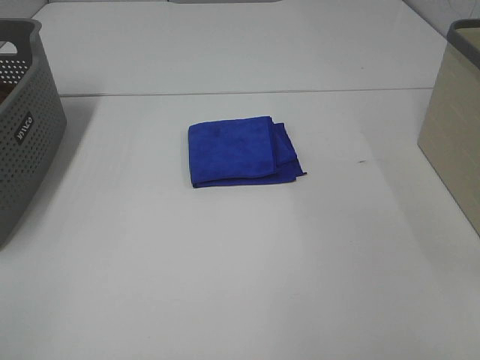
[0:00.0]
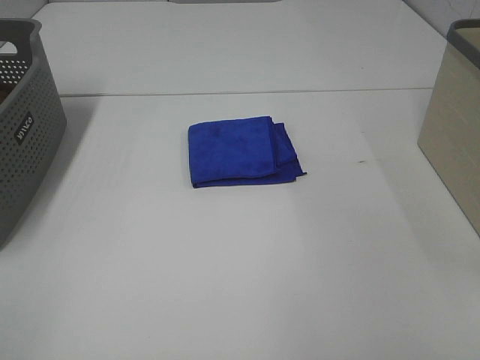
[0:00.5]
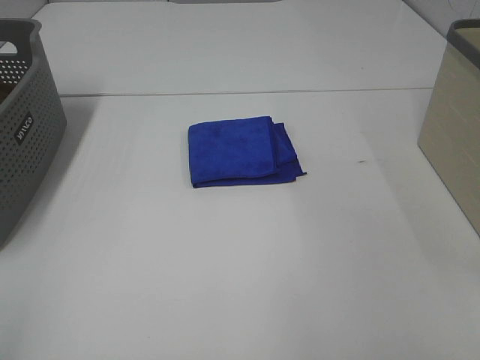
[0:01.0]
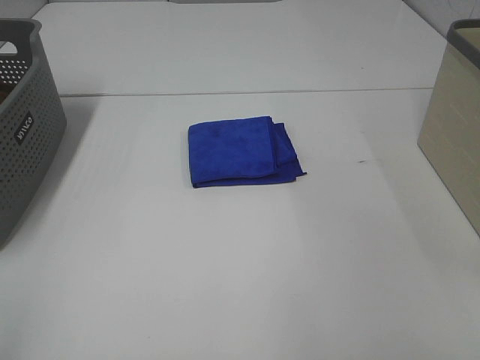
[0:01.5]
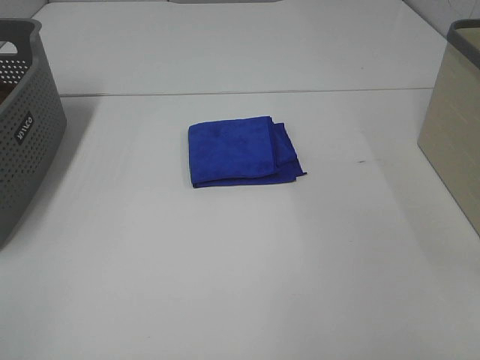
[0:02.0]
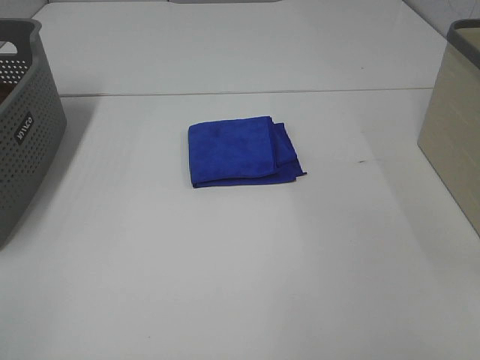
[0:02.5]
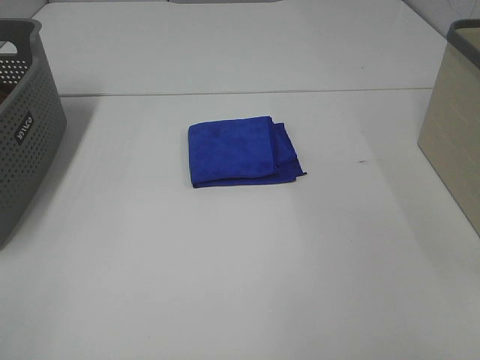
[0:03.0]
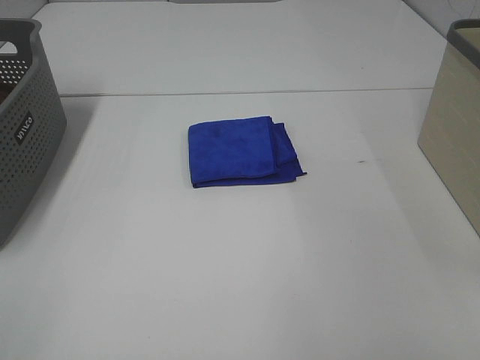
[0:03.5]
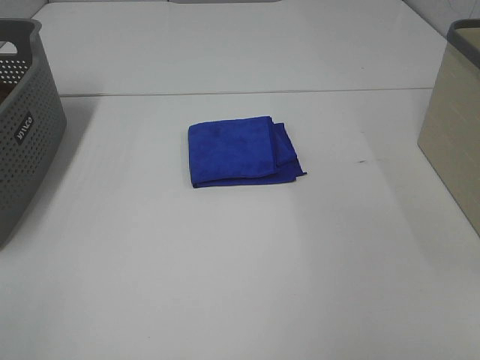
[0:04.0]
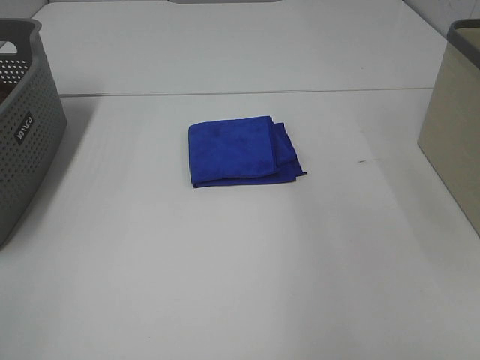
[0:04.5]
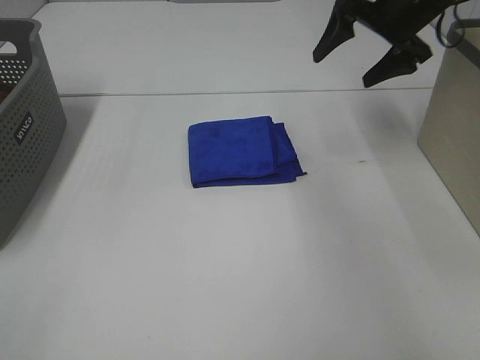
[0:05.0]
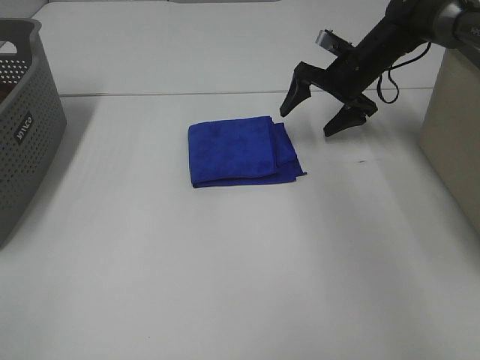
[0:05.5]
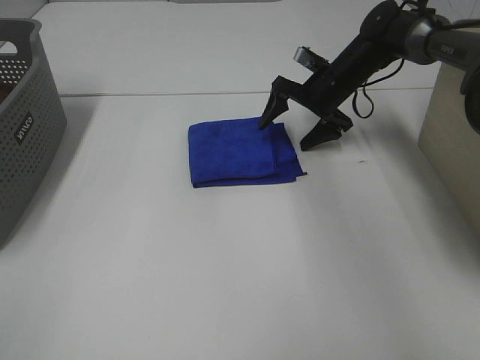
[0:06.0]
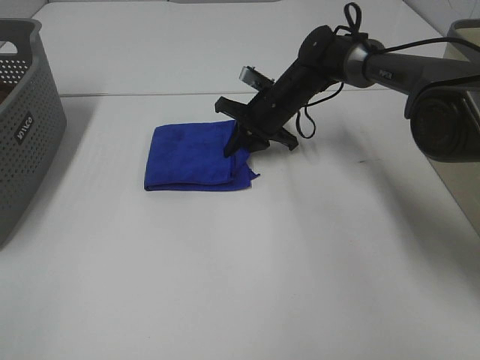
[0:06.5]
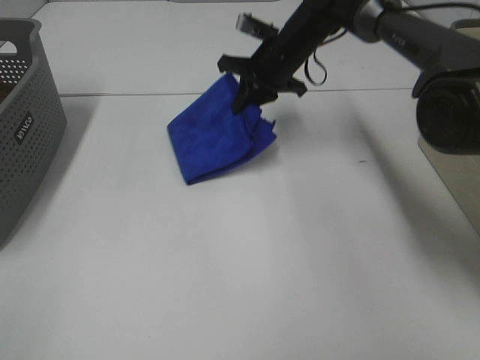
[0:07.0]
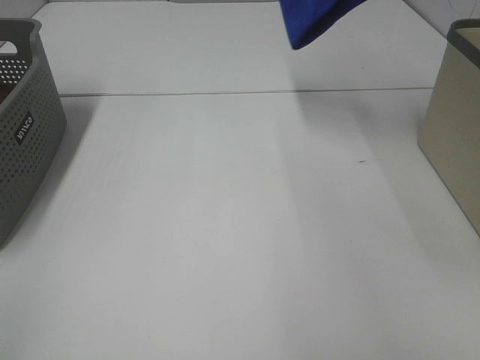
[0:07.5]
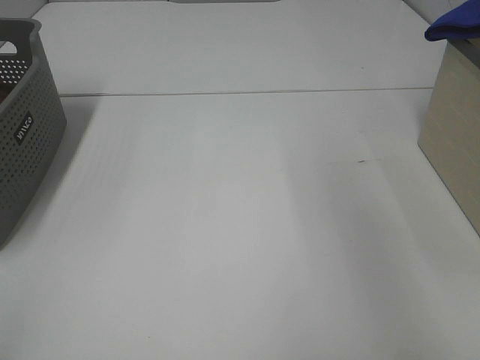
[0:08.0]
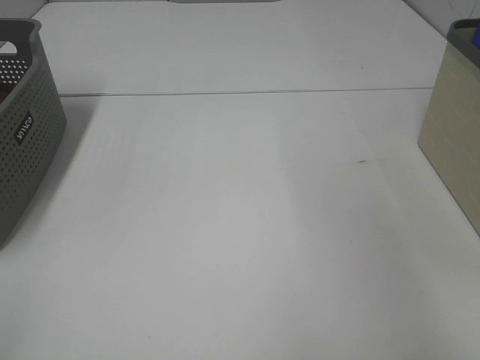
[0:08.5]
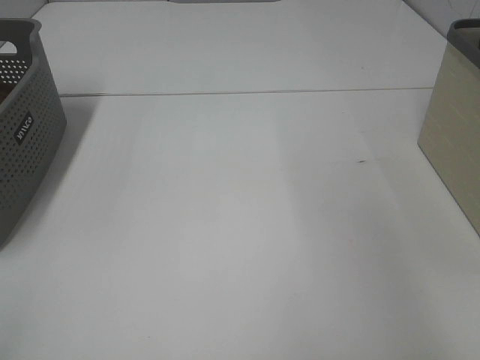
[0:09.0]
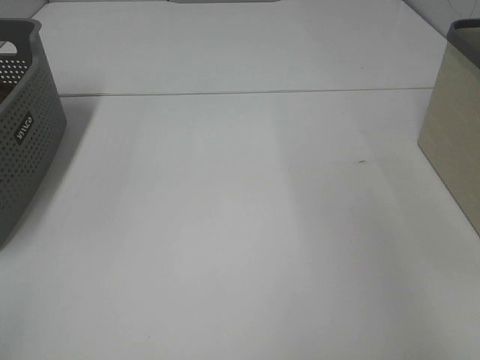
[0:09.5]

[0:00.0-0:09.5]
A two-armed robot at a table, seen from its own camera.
Step, 0:00.0 to 0:06.5: Right hand: grab the folded blue towel.
0:04.0 to 0:05.5: The right gripper is displaced forward and downward by approximately 50 cm.
0:05.5 to 0:07.5: The right gripper shifts about 25 cm upward, and closes its fingers.
0:07.5 to 0:09.5: The right gripper heads to the right, covering some 25 cm.

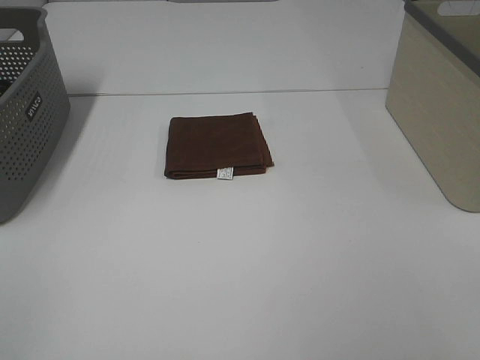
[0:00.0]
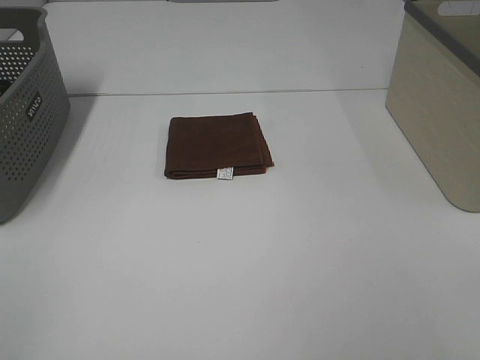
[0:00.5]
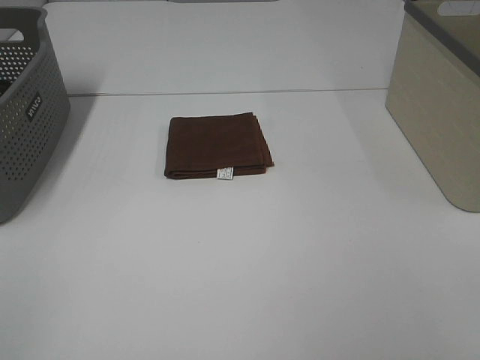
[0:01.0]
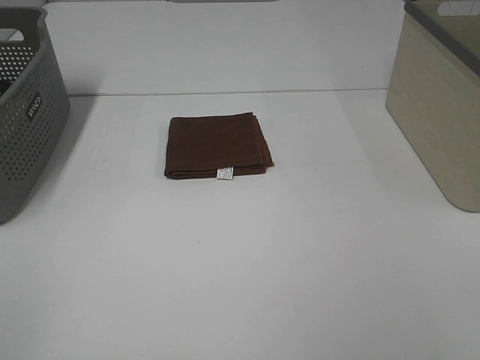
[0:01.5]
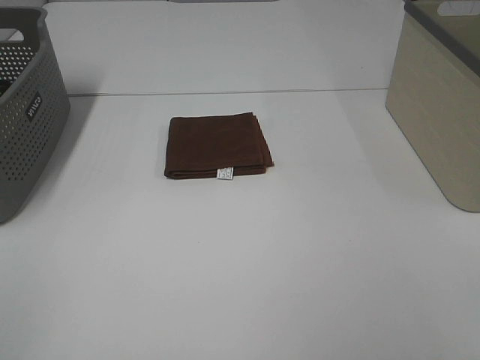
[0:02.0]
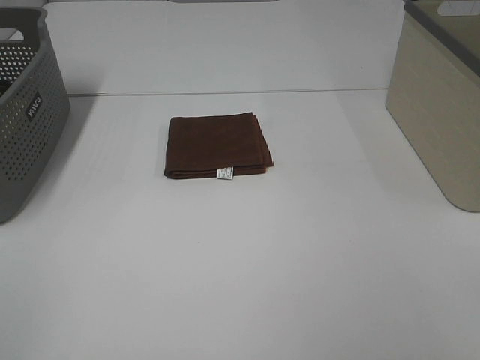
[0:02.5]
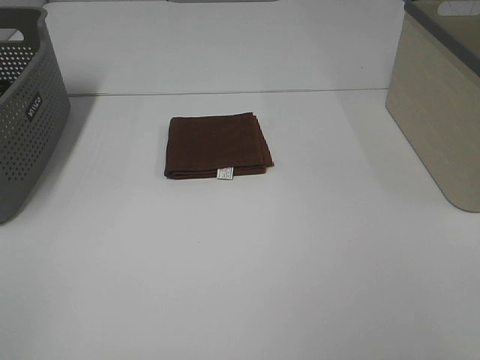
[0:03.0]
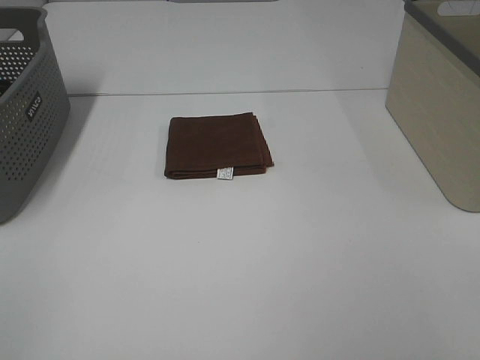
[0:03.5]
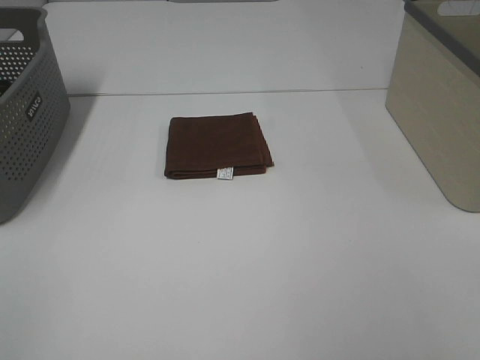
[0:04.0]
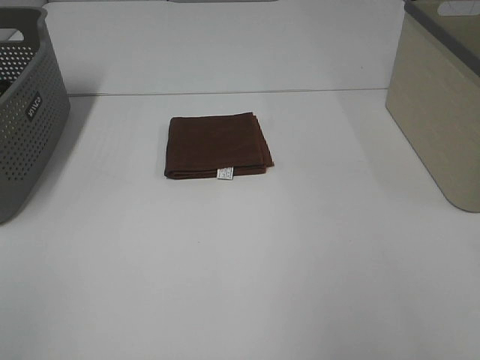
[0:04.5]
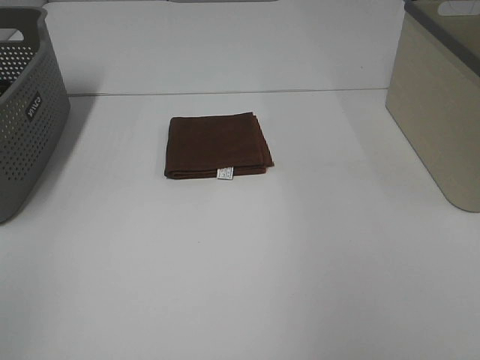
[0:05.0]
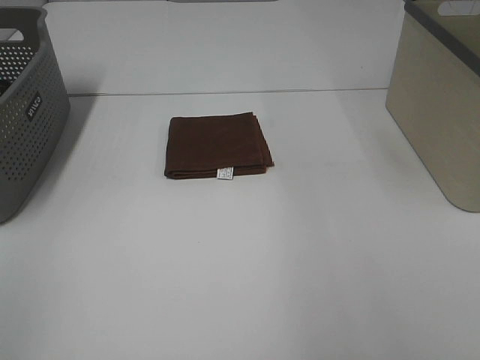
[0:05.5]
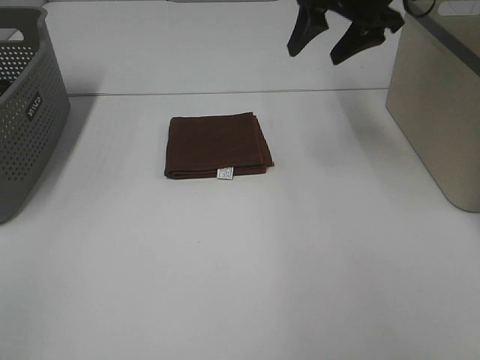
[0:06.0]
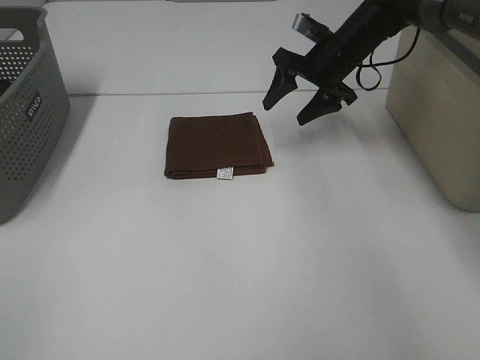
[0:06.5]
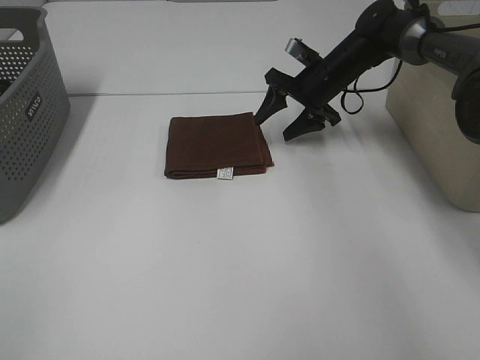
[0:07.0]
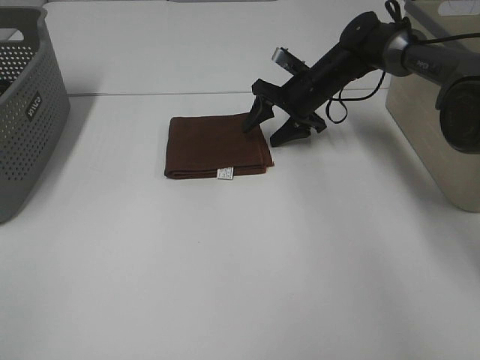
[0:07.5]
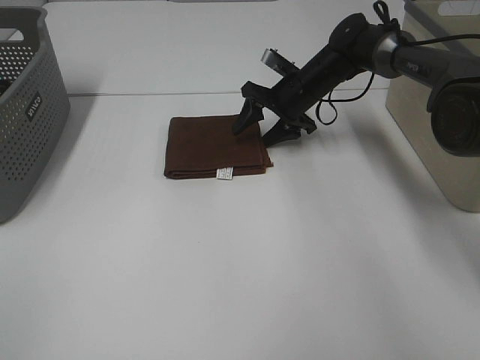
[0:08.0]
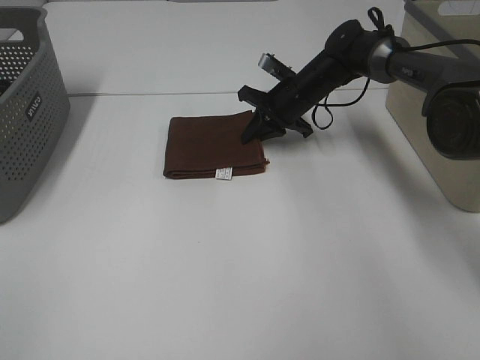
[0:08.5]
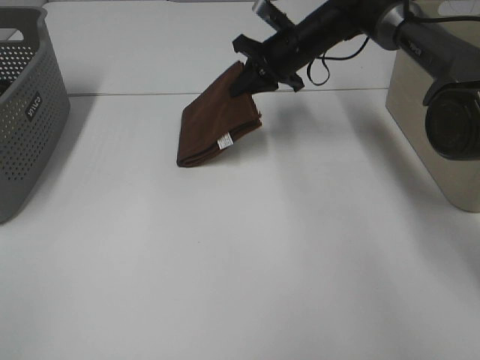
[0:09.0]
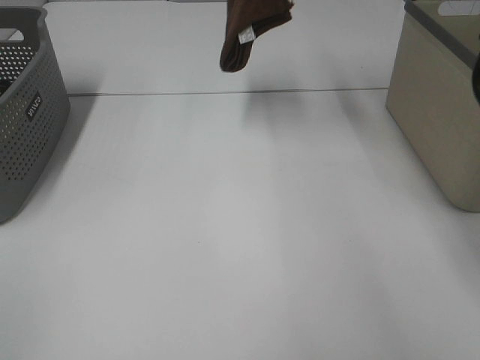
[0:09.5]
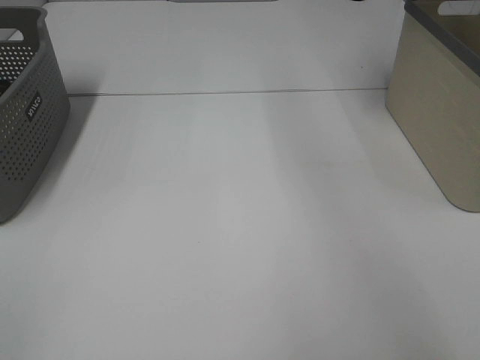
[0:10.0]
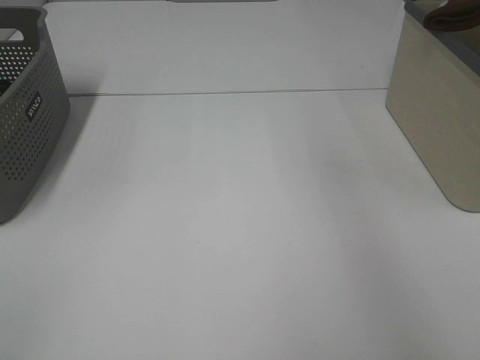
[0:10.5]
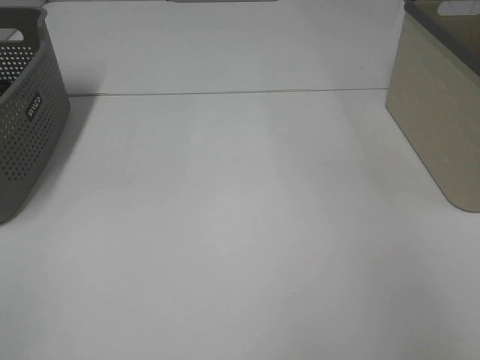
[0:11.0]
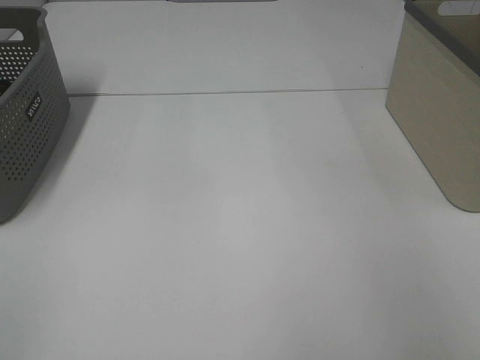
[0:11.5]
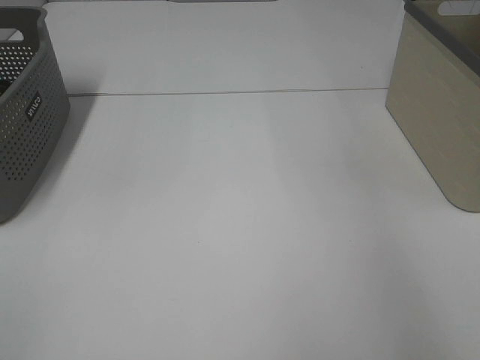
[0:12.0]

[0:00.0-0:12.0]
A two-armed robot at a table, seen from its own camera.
Step, 0:00.0 to 0:08.5: Right hand: grab the folded brown towel.
Step, 0:09.0 to 0:11.5: Right hand: place the brown towel in right basket.
0:00.0 to 0:02.0: Both grippers stay put.
0:04.0 to 0:06.0: The right gripper goes about 40 cm forward.
0:06.0 to 0:08.0: The right gripper travels downward by about 20 cm.
0:08.0 to 0:10.0: The right gripper moves upward and to the right, approximately 40 cm, and closes.

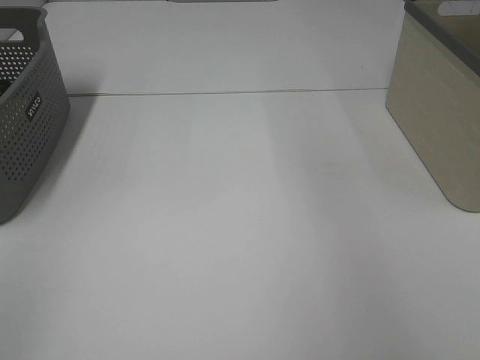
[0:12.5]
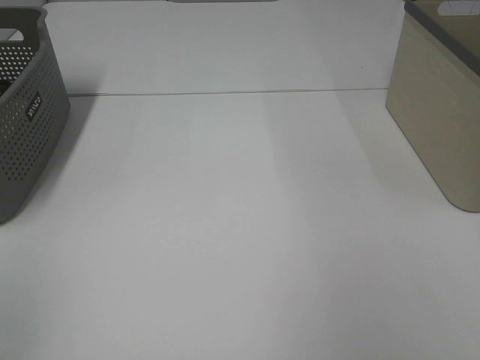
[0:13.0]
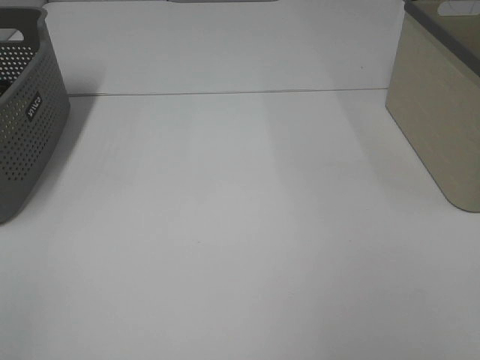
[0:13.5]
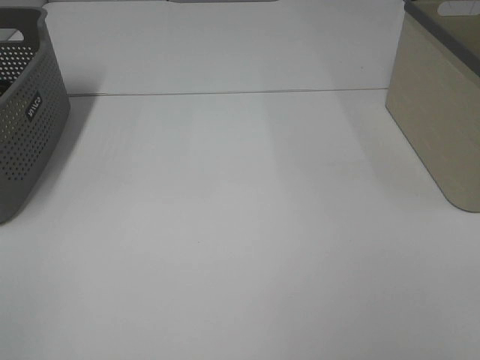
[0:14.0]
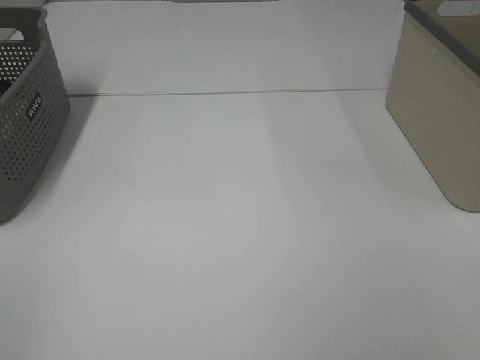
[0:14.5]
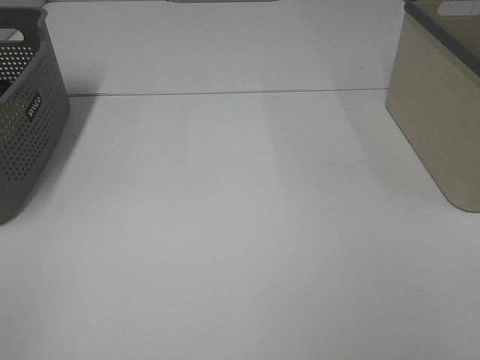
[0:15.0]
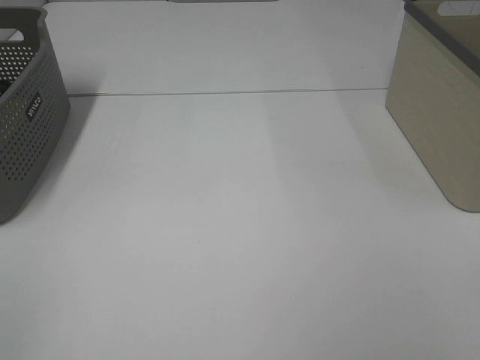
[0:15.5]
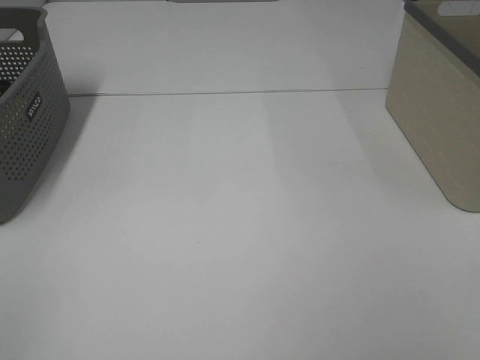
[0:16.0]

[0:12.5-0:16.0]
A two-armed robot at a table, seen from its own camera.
0:14.5 to 0:16.0: Neither gripper changes place.

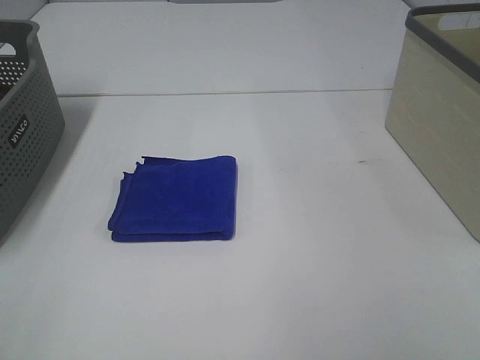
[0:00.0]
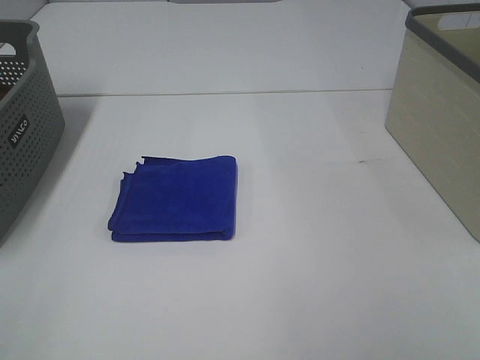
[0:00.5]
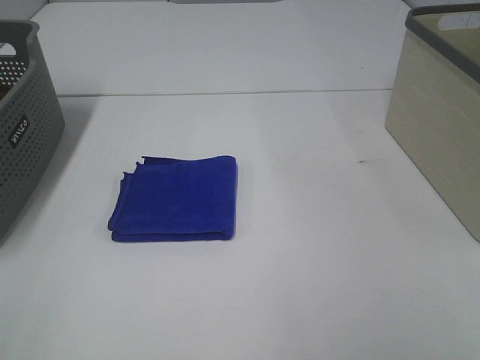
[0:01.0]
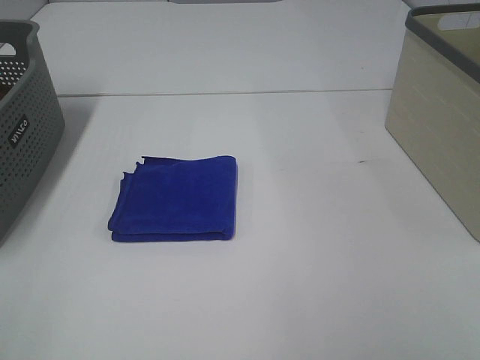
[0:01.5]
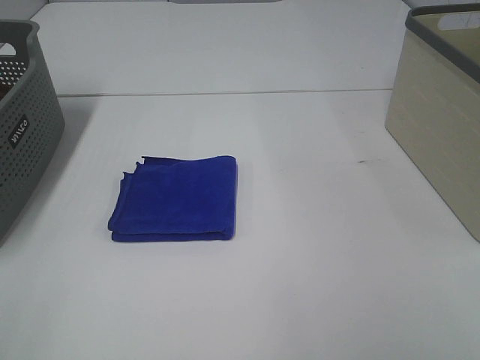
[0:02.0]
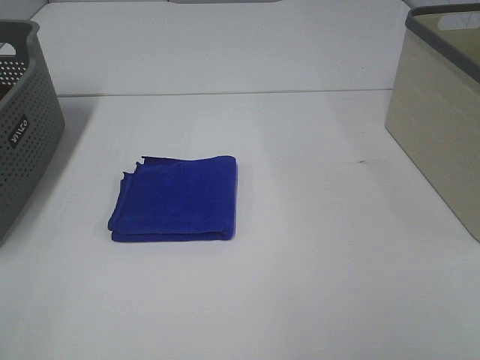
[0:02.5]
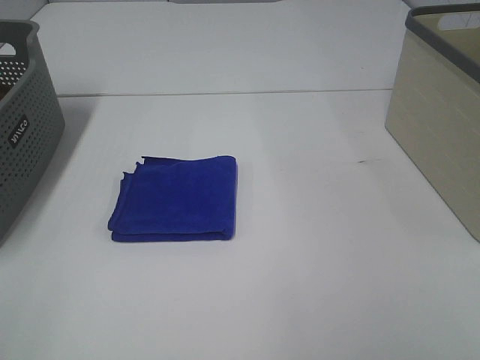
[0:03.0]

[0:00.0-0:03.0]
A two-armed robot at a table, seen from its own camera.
0:01.5 to 0:03.0: Neither gripper changes place.
